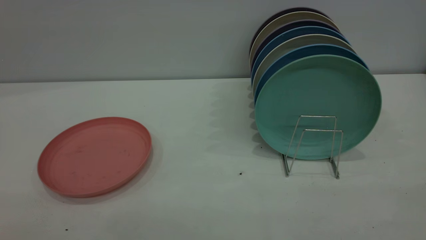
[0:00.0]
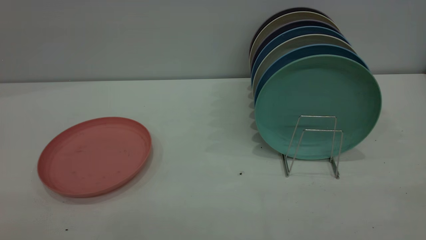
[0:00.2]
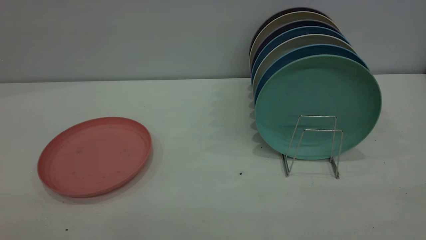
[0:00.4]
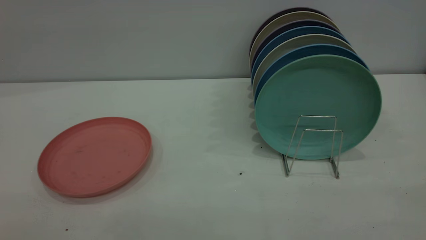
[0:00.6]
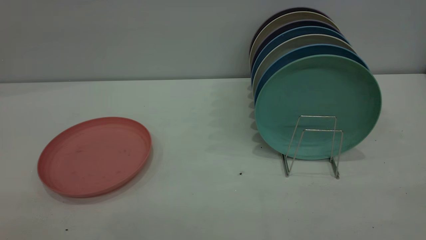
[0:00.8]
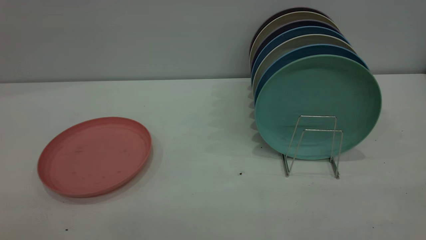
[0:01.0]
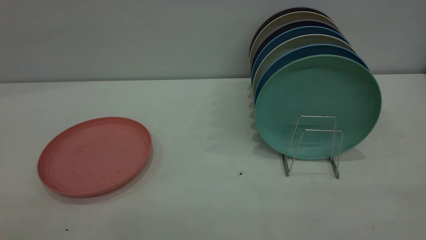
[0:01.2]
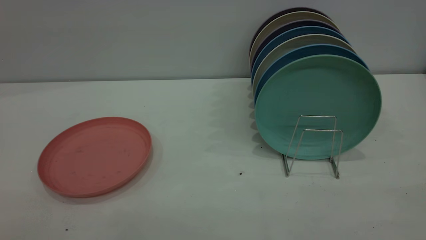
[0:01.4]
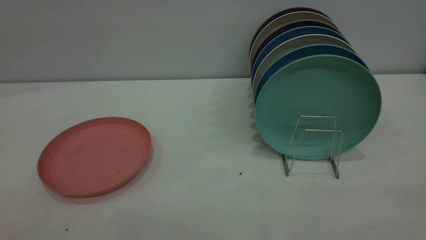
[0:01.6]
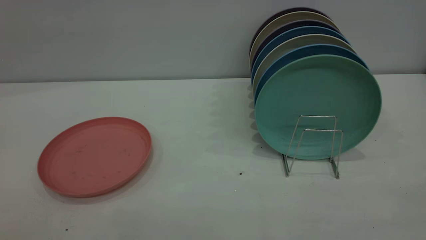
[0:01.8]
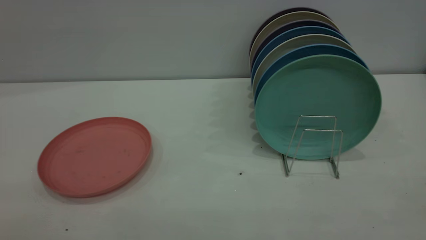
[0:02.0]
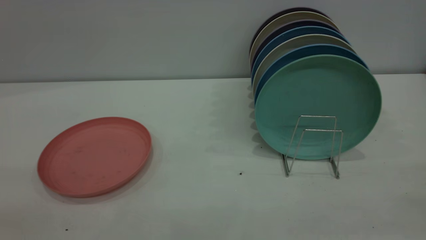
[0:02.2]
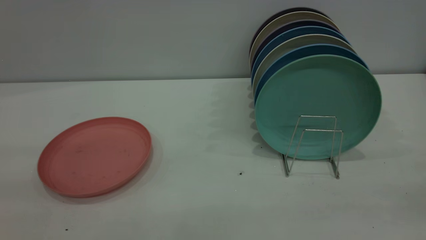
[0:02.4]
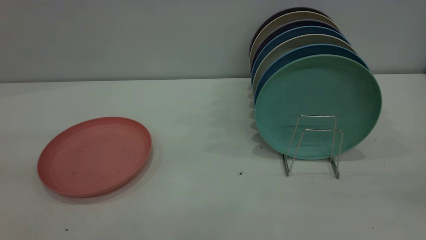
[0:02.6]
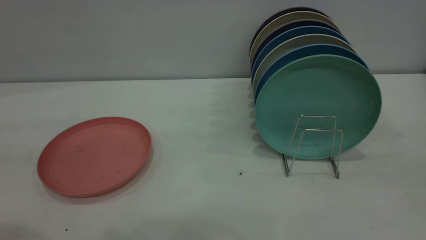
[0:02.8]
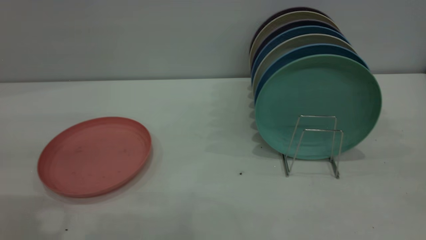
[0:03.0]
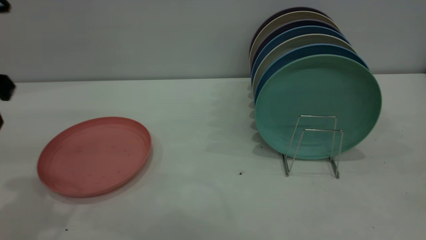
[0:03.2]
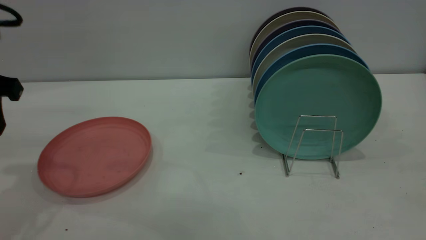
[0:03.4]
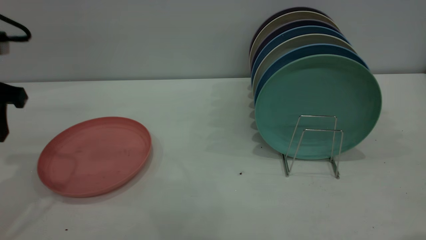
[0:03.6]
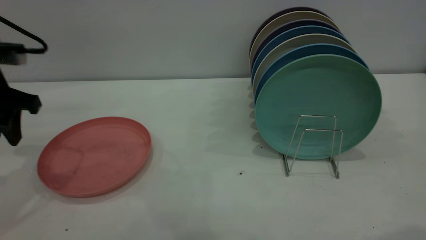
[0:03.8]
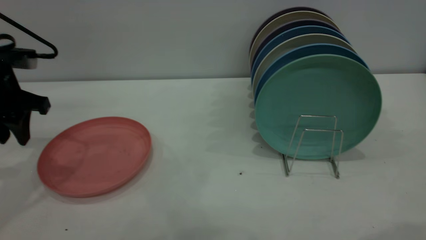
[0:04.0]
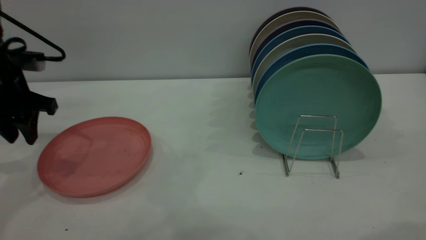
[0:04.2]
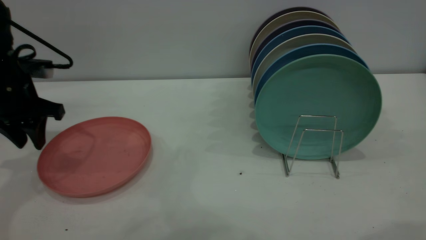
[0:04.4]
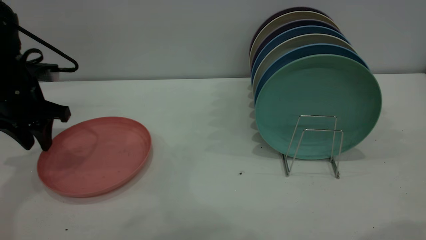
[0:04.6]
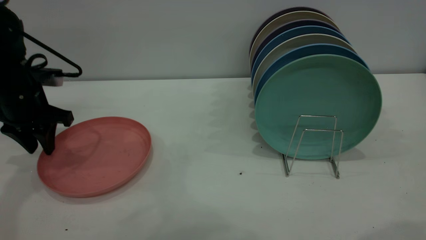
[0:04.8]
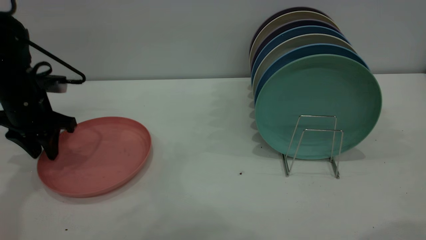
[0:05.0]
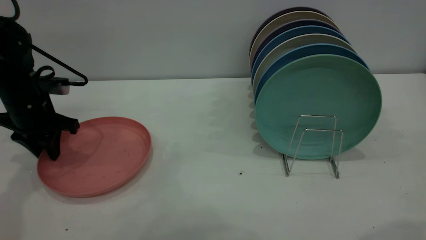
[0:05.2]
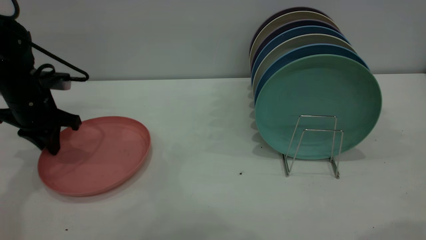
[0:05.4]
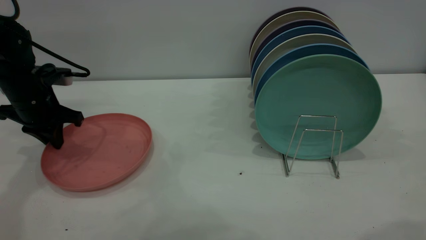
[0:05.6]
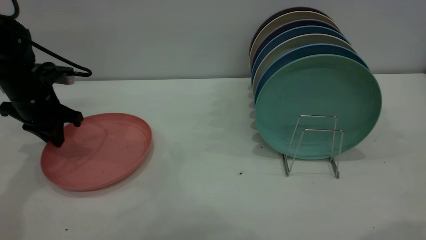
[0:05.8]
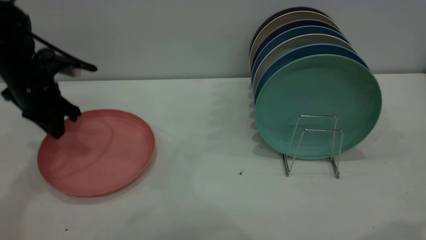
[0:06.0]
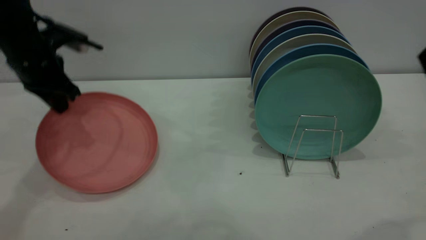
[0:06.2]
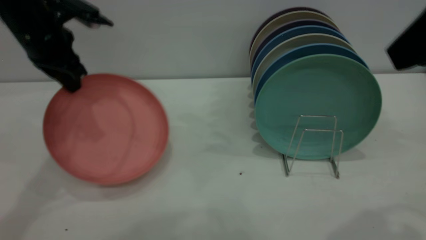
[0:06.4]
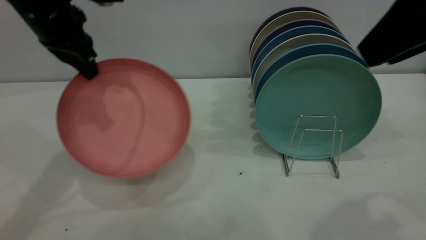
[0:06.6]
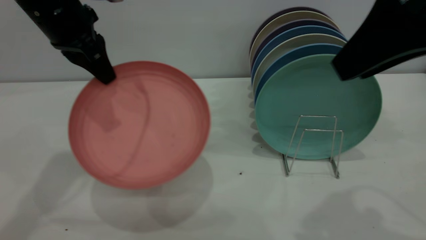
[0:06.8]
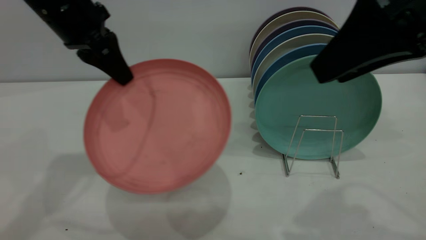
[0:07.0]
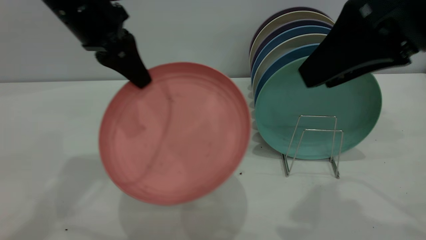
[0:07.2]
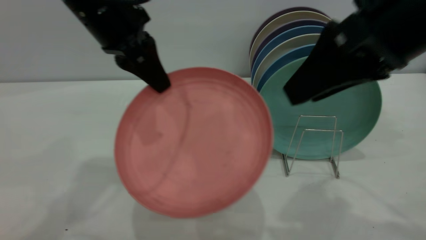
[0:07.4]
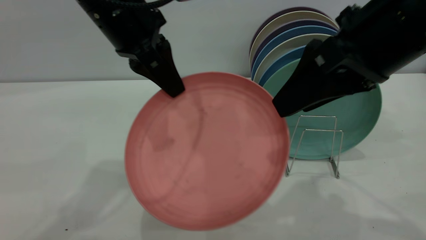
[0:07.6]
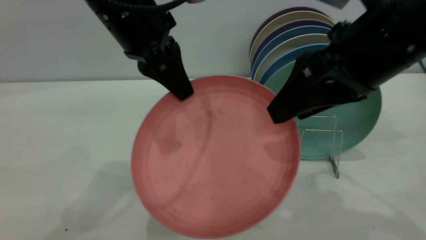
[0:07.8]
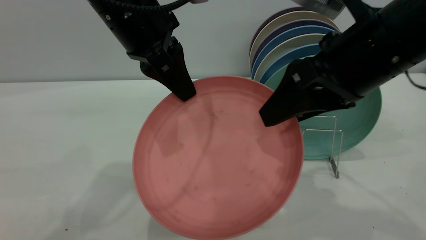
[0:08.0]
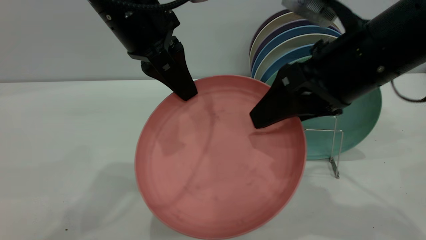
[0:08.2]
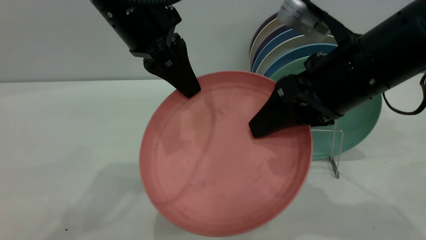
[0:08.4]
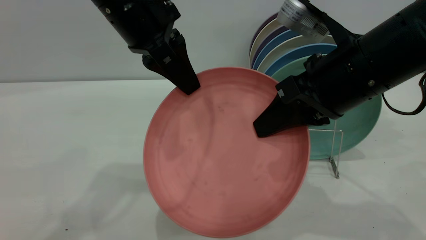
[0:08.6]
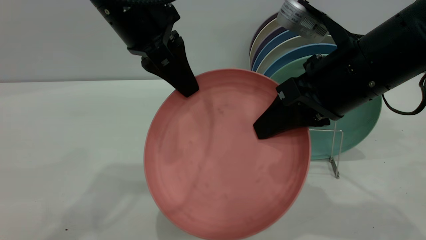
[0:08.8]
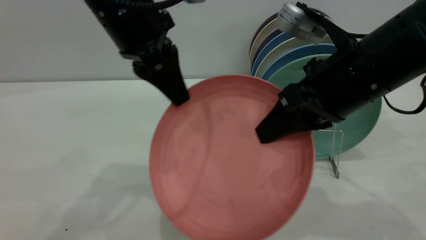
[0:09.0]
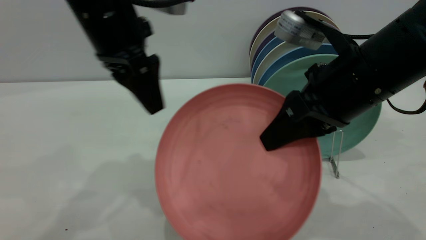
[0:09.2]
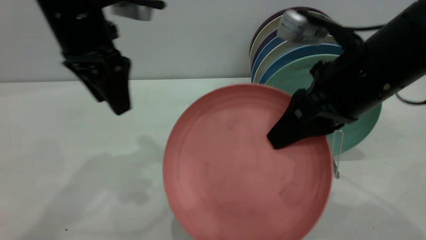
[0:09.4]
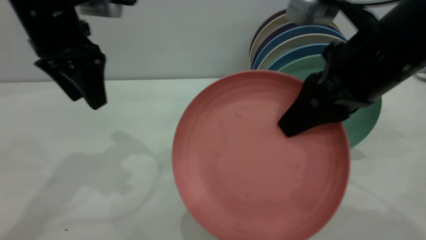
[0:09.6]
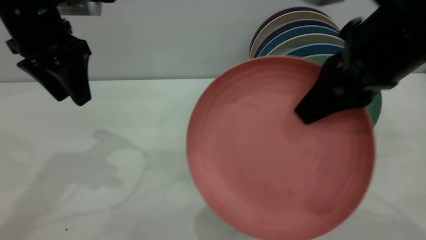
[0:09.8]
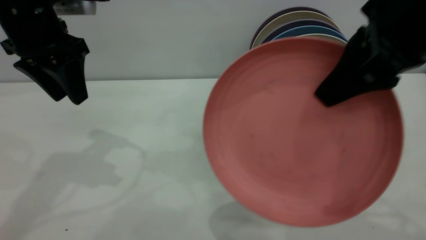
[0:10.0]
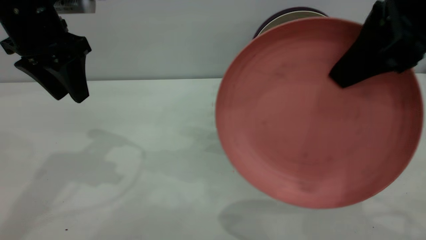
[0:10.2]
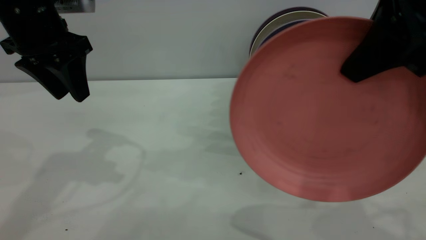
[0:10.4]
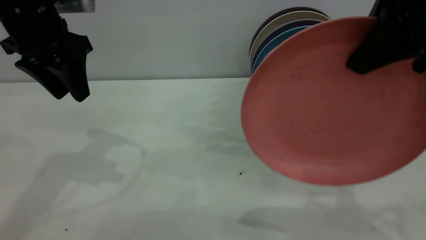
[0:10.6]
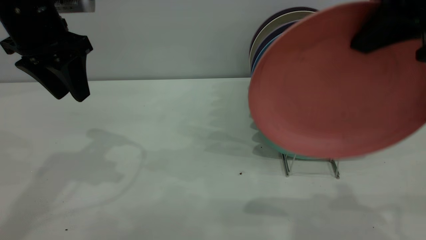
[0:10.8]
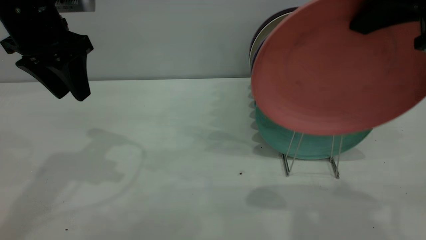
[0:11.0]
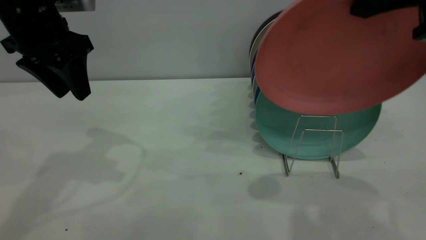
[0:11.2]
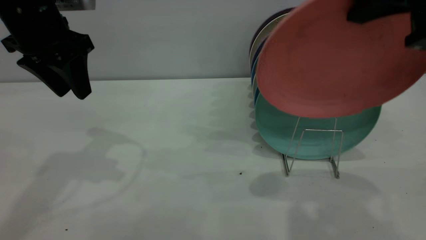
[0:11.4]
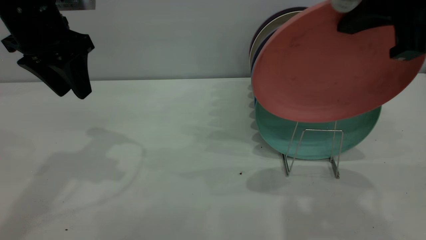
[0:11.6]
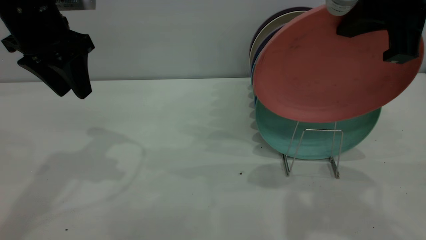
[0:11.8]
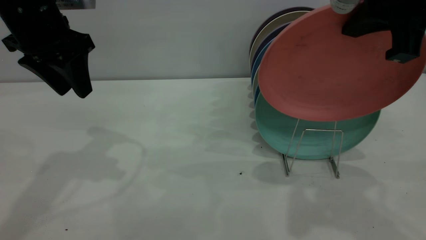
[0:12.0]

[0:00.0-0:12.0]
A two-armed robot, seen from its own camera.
Task of the whole recording: put the plate on the plate rack.
Step, 0:00.0 to 0:06.2: Pick up the plate with the left gripper.
Step, 0:06.6 to 0:09.2: Pass the plate from the left gripper to the right gripper.
0:03.0 to 0:04.4: The left gripper travels forward and downward by approximately 20 cm.
0:04.4 to 0:06.0: The left gripper closes up.
0:06.0 to 0:07.6: The right gripper is displaced forward, to the left and downward by approximately 15 cm, while the left gripper shifts roughly 20 cm to the right and upward.
0:07.6 to 0:09.0: The right gripper travels downward by roughly 5 cm, and closes up. Meanwhile the left gripper opens up.
0:09.0 to 0:10.4: The right gripper travels upward by some 10 cm; the left gripper travels to the left by approximately 10 cm, and opens.

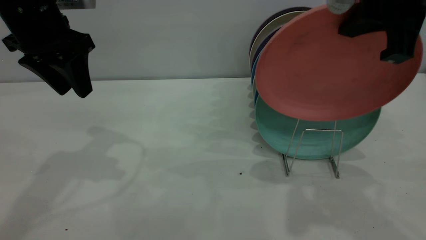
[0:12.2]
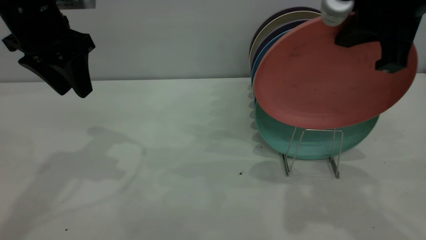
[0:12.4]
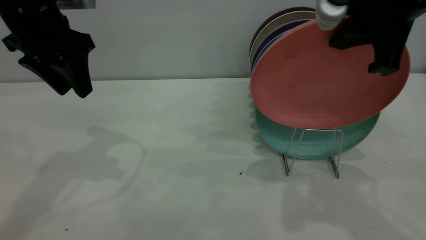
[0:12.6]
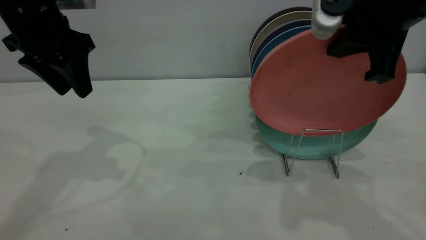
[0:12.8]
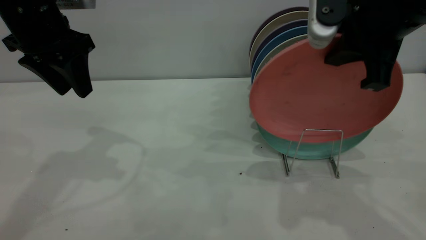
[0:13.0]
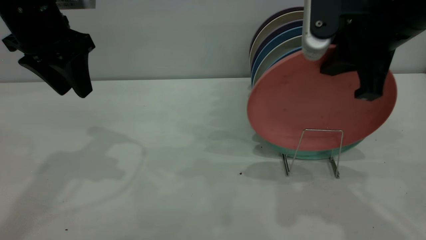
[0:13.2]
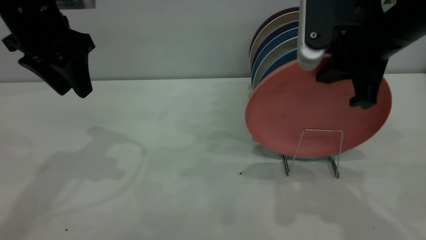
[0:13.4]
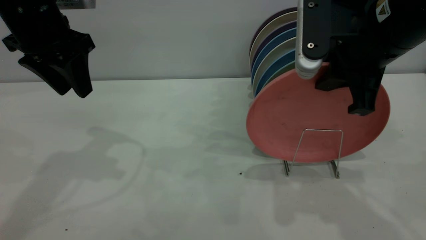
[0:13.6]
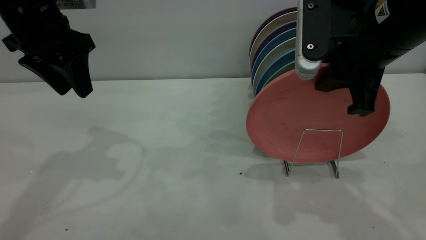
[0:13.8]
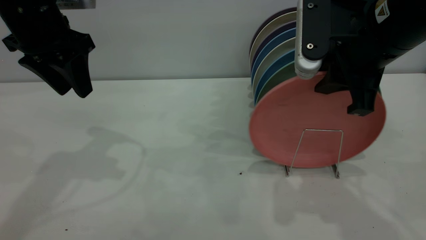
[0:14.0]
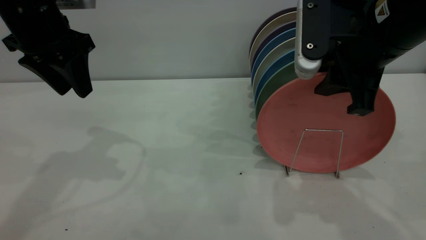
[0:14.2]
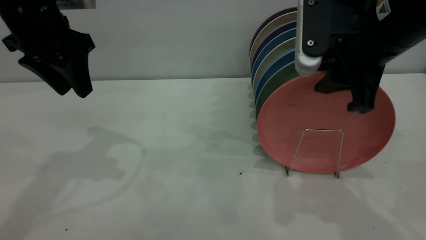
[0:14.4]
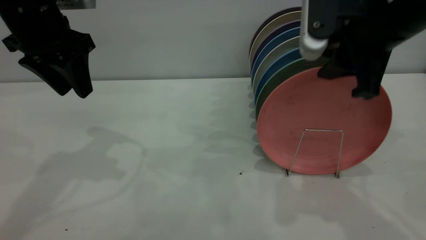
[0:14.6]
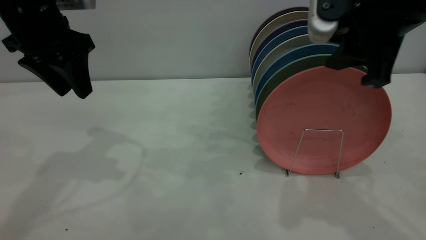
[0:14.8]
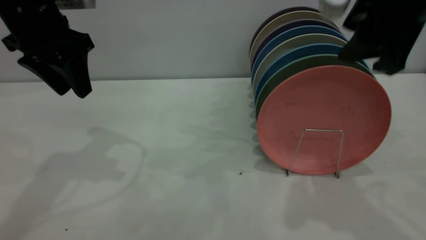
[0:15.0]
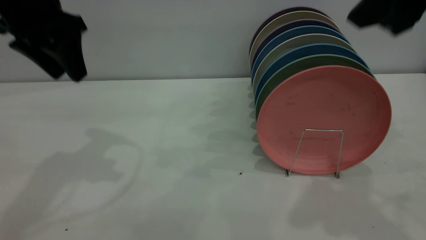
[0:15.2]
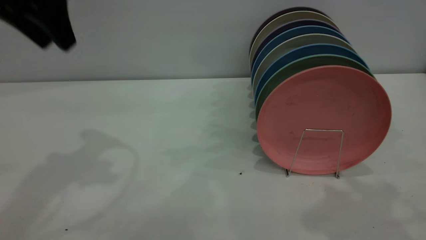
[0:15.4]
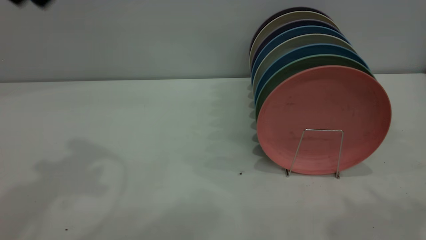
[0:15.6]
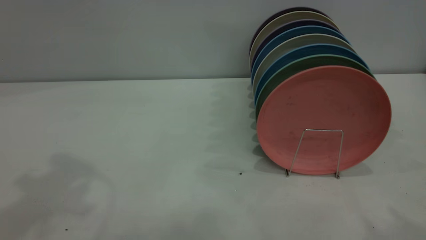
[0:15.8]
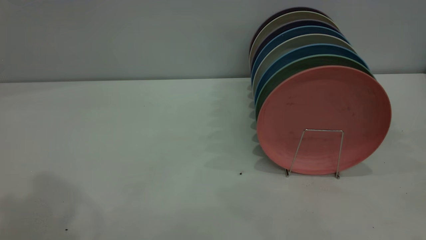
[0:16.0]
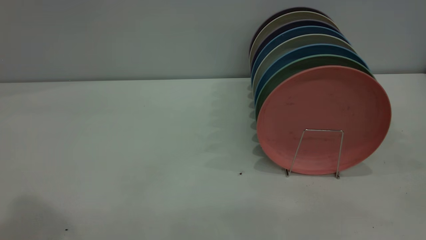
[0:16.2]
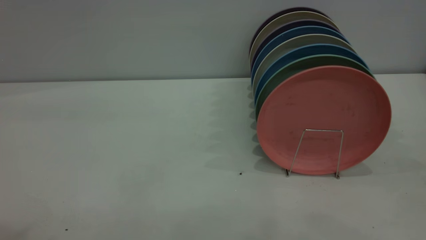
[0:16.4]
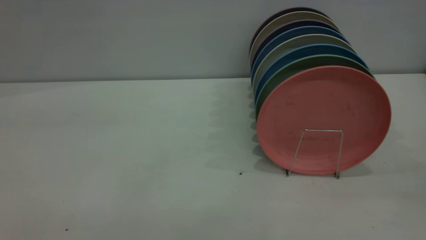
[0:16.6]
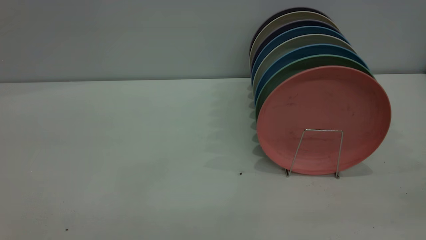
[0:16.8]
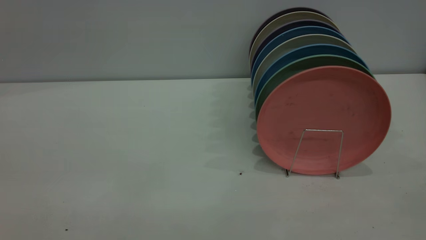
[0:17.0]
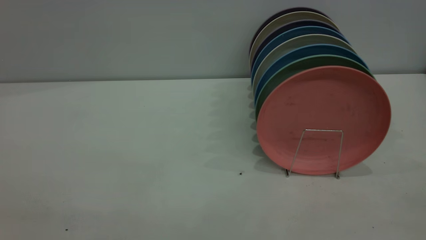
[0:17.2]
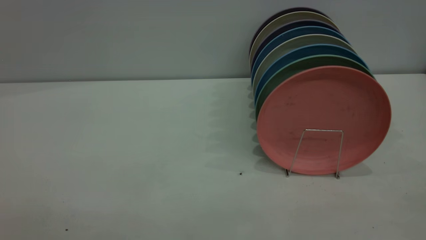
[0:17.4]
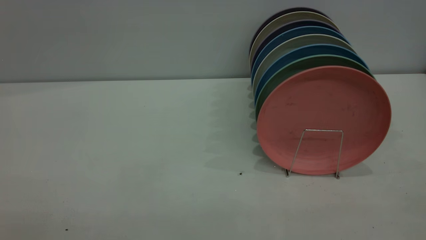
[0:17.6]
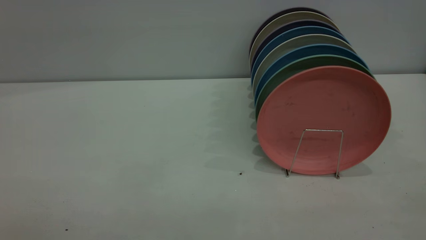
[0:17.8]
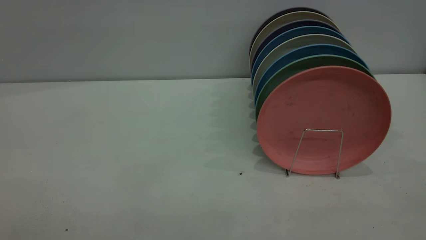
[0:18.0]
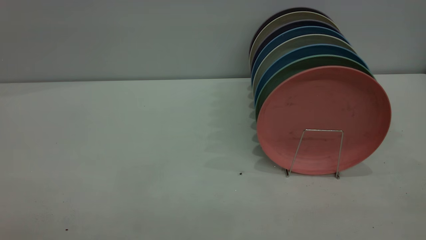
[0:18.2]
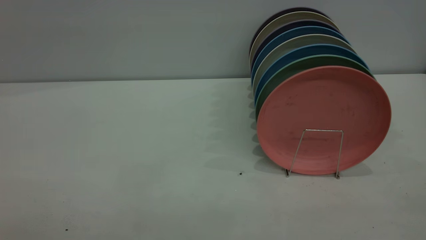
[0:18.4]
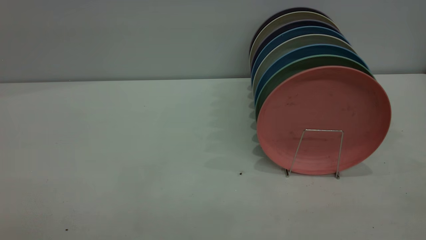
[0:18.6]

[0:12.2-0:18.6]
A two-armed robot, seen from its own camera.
Task of the whole recording: put the plate on the plate rack.
Step, 0:12.2 to 0:15.0: Place the plate on the shelf.
0:12.2 to 0:13.8: The right gripper is displaced downward by some 5 cm.
0:13.8 to 0:15.4: The left gripper heads upward, covering approximately 10 cm. The right gripper heads upward and backward, covering about 15 cm, and opens up.
0:15.4 to 0:17.0: The left gripper heads backward and upward, covering some 35 cm.
